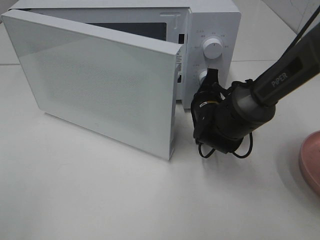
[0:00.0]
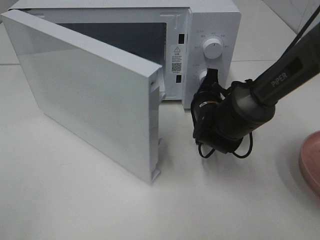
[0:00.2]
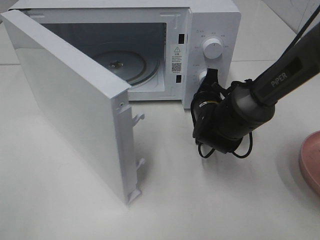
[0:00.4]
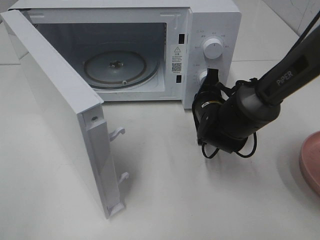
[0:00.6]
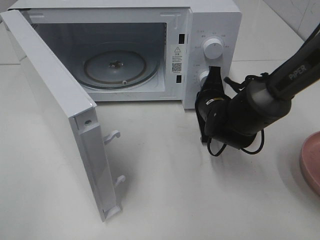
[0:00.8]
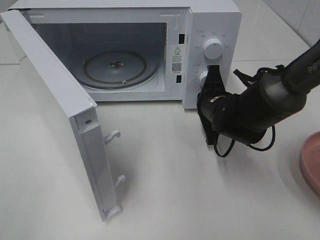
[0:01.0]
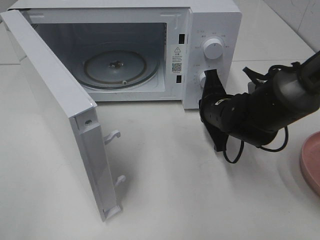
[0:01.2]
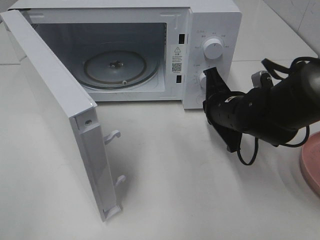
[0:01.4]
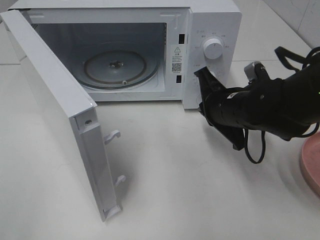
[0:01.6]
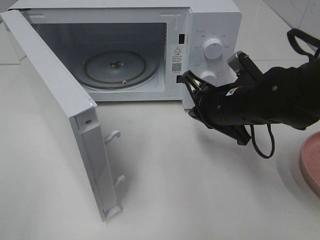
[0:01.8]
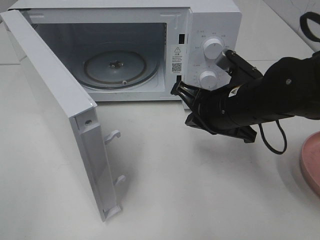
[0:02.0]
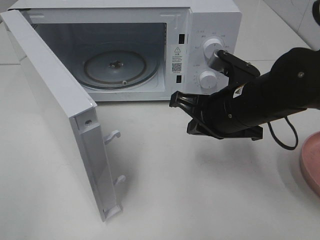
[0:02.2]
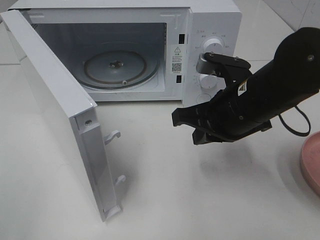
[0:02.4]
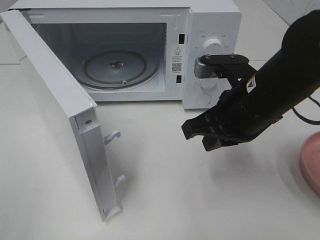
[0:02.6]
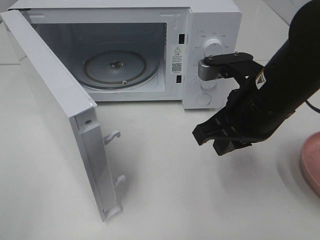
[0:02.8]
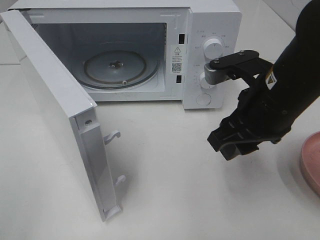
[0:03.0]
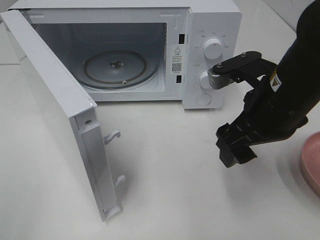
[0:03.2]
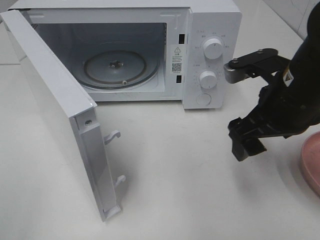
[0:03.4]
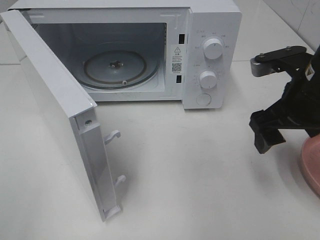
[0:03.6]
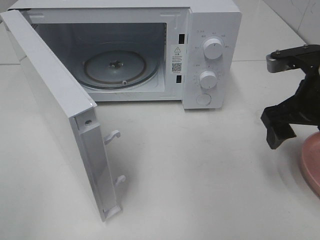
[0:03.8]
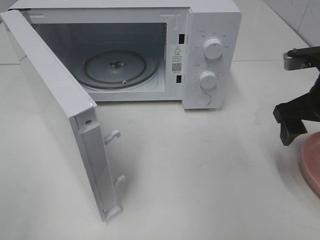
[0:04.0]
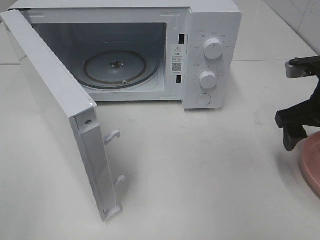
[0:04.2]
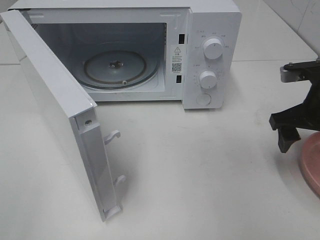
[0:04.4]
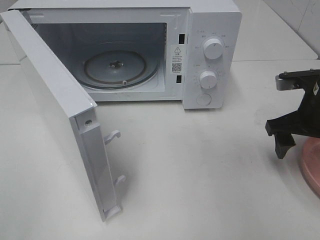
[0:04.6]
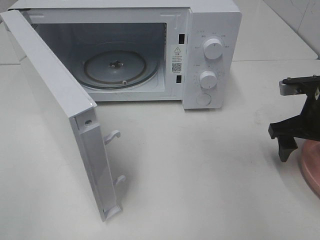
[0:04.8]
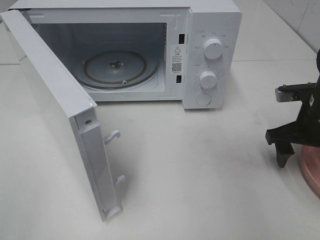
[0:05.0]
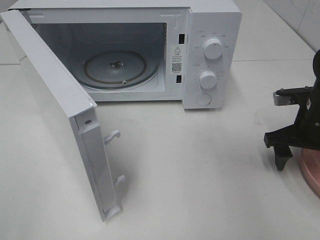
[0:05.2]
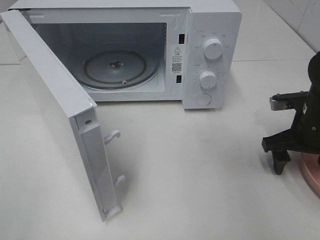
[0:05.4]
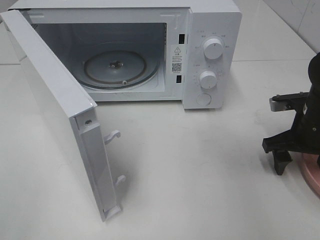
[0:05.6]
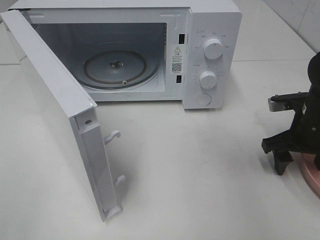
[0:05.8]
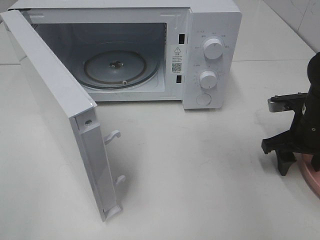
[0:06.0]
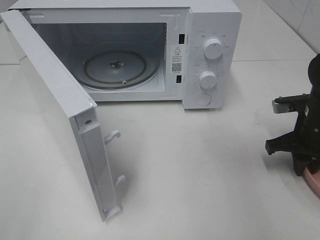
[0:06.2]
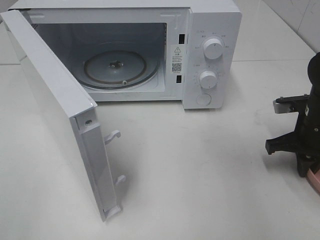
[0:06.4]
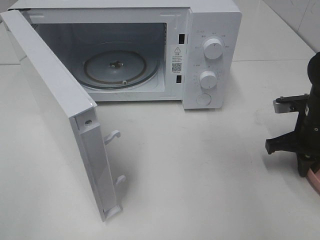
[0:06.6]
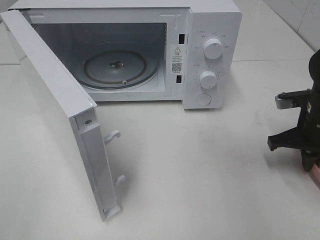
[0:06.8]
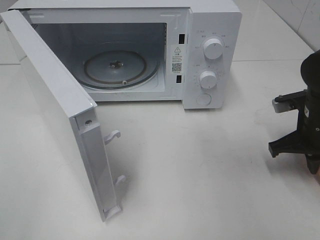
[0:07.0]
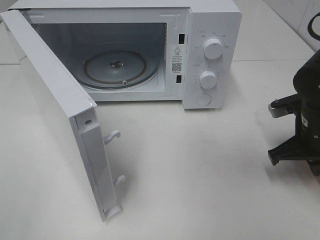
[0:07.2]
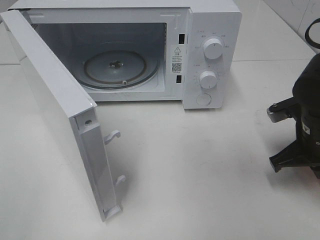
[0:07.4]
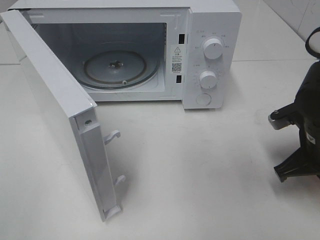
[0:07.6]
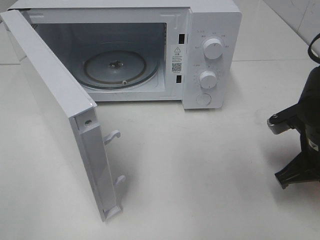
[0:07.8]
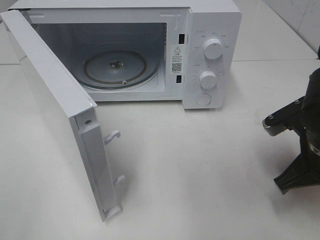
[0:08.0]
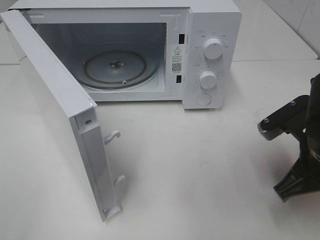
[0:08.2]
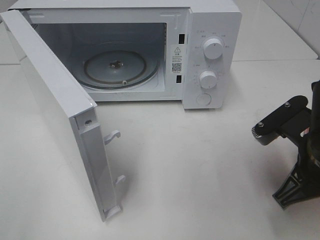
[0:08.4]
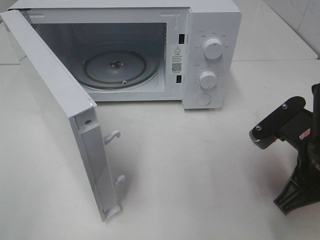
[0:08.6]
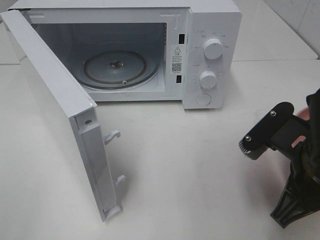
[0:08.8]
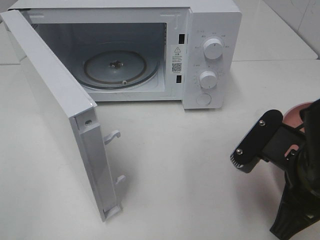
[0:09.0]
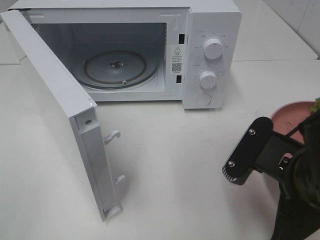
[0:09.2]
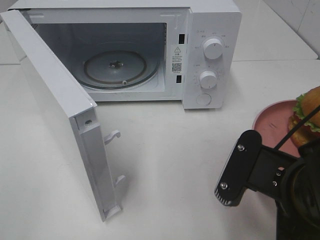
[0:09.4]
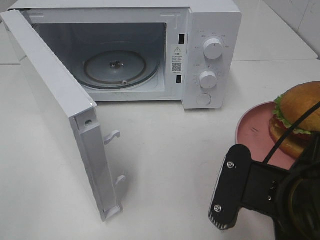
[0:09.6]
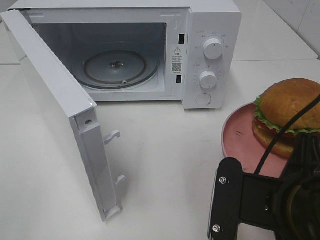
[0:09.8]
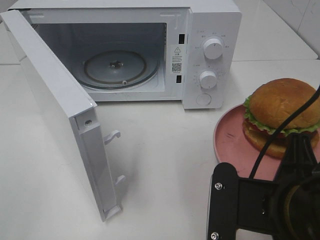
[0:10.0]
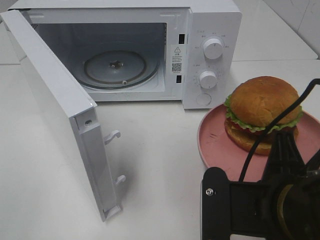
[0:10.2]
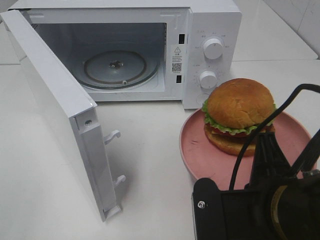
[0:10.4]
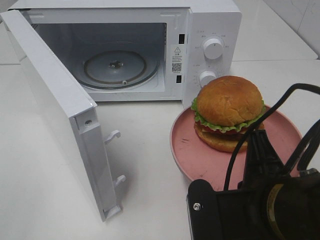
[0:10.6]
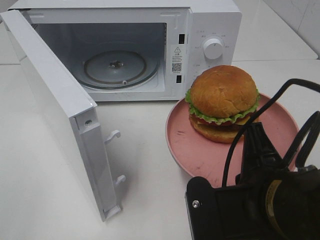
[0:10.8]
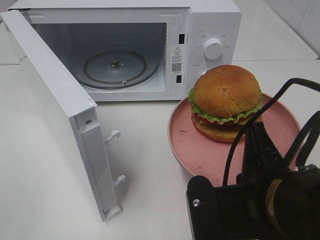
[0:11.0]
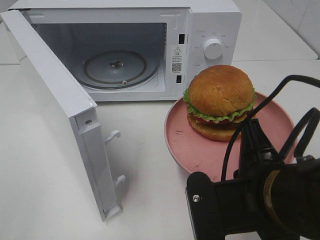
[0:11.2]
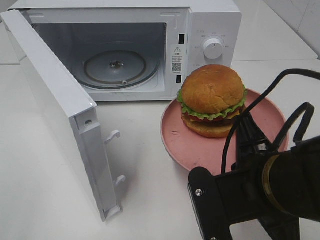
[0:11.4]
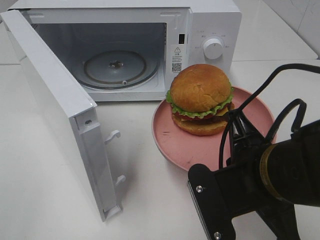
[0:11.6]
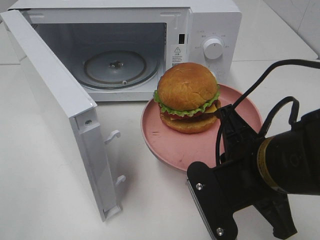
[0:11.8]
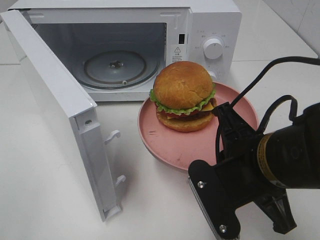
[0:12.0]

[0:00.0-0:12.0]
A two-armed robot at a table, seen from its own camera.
Task of the whole recording: Heat the burger.
Step, 0:01.4 to 0:06.8: Right hand: grab the plate with the hamburger.
0:00.0 to 0:01.6: The right gripper goes approximately 10 cm backward and upward.
0:01.6 to 0:03.0: The right gripper moves upward and backward, some 10 cm, and opens its fingers.
0:03.0 to 0:04.4: The right gripper travels to the right by some 10 cm, and opens up.
0:04.4 to 0:06.0: The right gripper shifts some 5 cm downward.
0:06.0 to 0:07.6: The right gripper travels backward by roughly 5 cm, and closes.
0:07.6 to 0:09.0: The right gripper heads backward and to the left, covering about 15 cm.
0:09.0 to 0:10.4: The right gripper ends up about 5 cm from where it was.
0:10.4 to 0:12.0: The right gripper heads forward, covering roughly 5 cm.

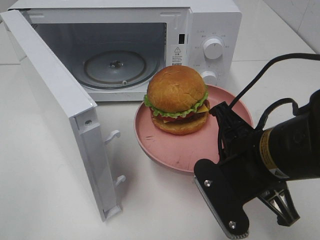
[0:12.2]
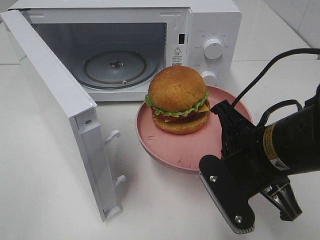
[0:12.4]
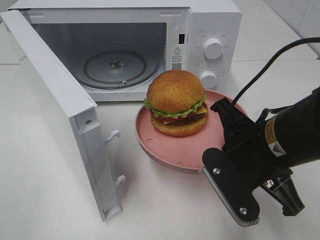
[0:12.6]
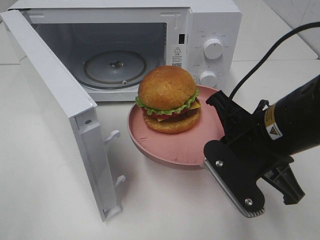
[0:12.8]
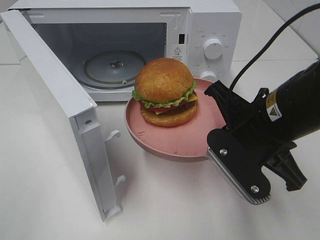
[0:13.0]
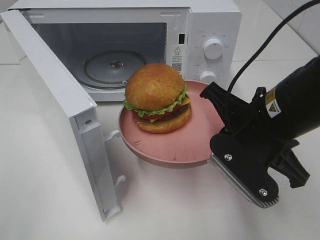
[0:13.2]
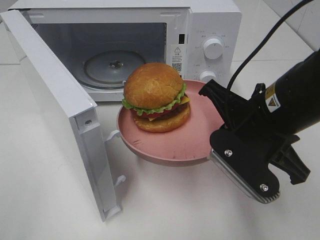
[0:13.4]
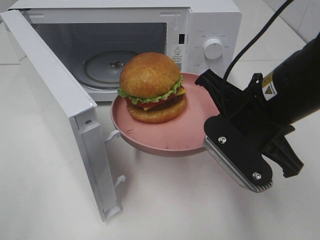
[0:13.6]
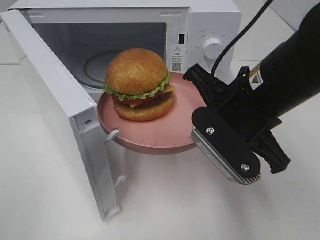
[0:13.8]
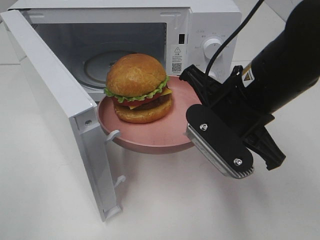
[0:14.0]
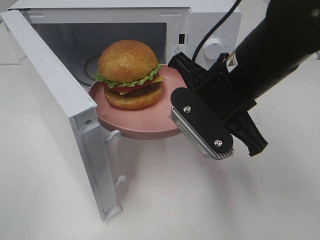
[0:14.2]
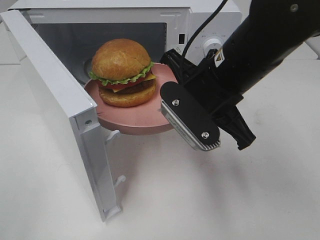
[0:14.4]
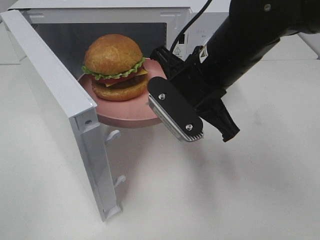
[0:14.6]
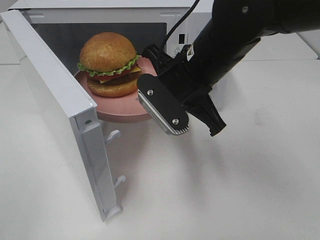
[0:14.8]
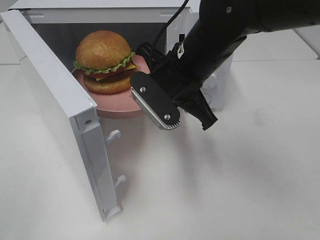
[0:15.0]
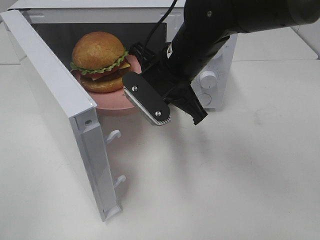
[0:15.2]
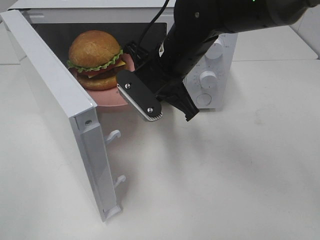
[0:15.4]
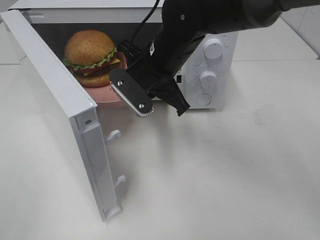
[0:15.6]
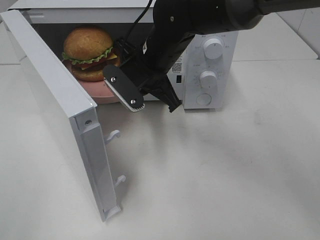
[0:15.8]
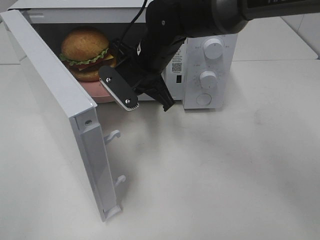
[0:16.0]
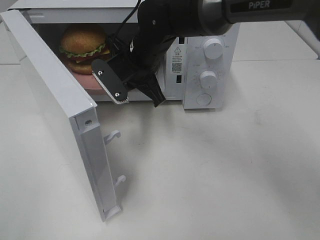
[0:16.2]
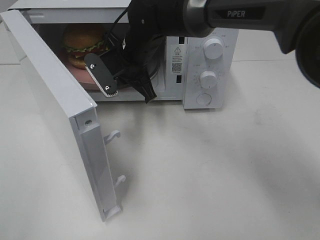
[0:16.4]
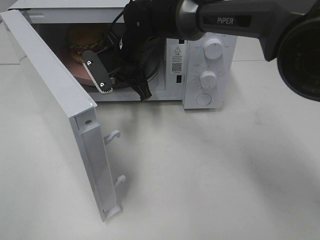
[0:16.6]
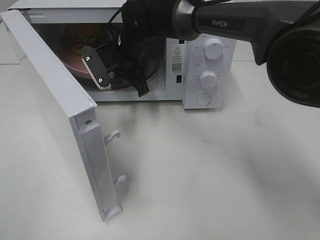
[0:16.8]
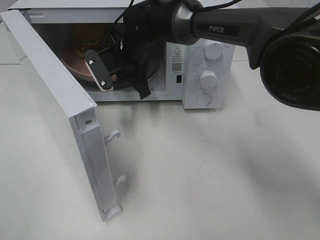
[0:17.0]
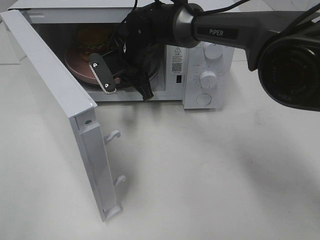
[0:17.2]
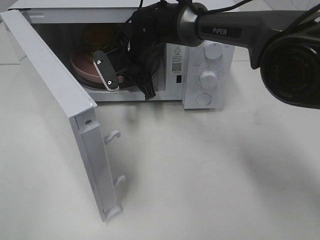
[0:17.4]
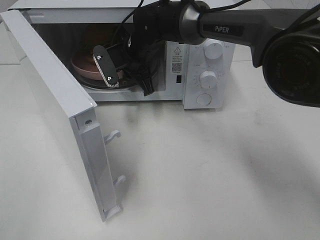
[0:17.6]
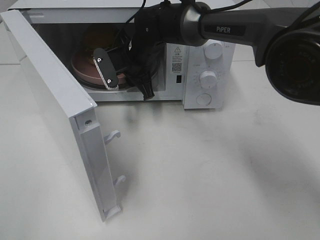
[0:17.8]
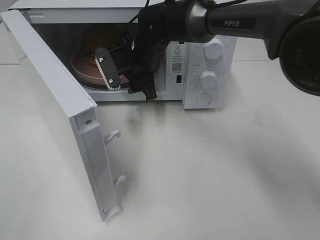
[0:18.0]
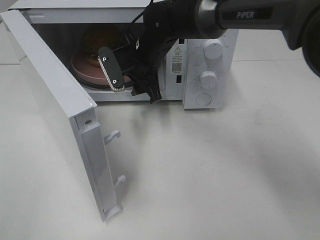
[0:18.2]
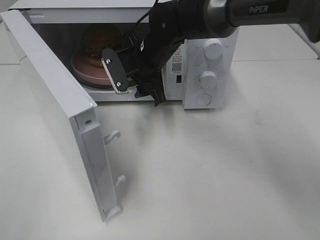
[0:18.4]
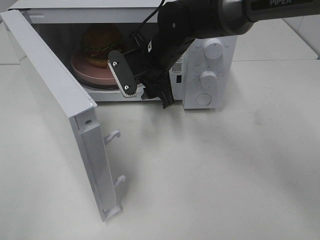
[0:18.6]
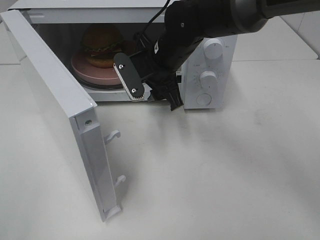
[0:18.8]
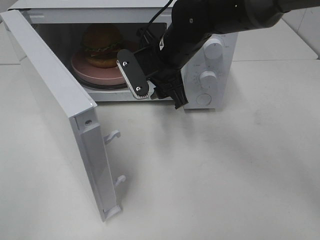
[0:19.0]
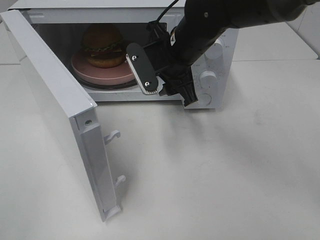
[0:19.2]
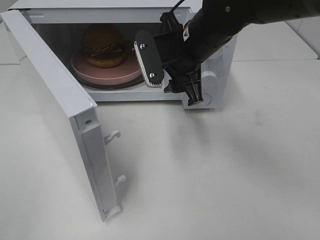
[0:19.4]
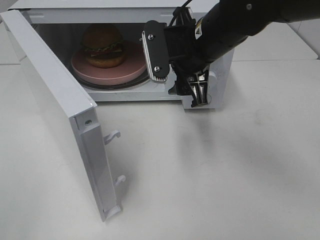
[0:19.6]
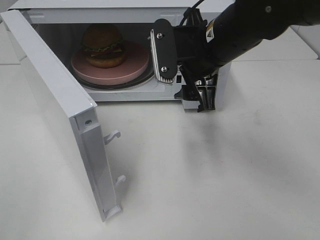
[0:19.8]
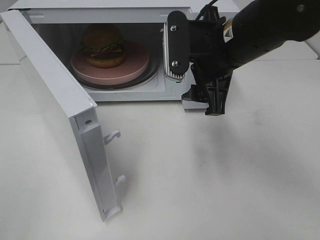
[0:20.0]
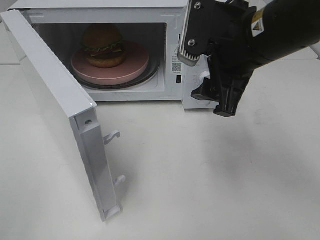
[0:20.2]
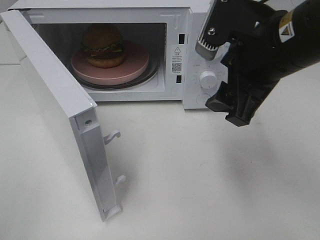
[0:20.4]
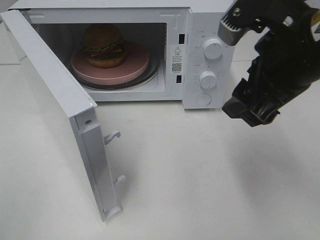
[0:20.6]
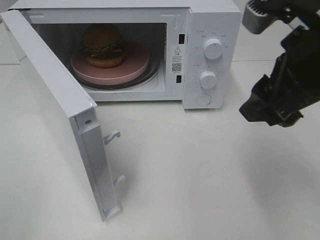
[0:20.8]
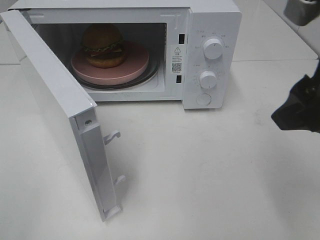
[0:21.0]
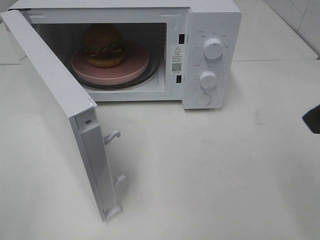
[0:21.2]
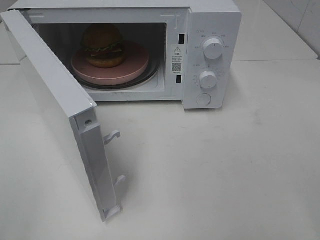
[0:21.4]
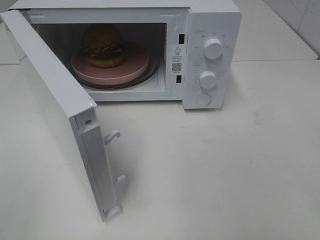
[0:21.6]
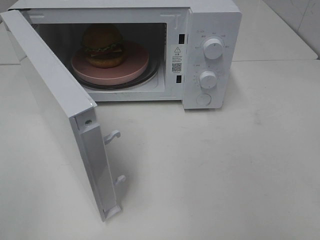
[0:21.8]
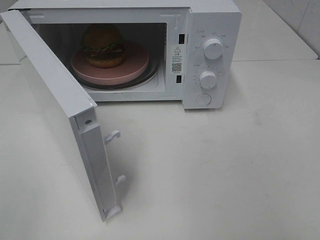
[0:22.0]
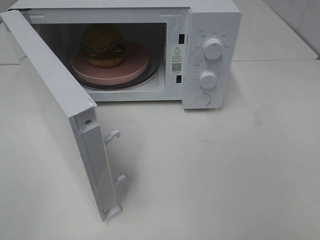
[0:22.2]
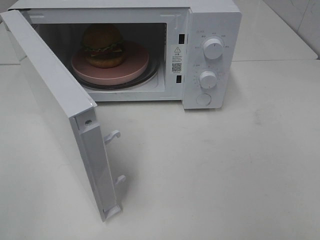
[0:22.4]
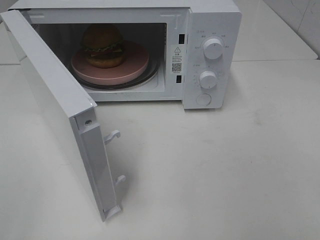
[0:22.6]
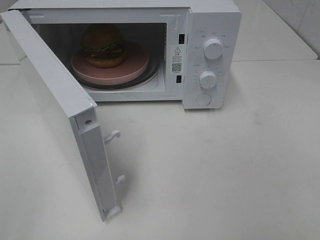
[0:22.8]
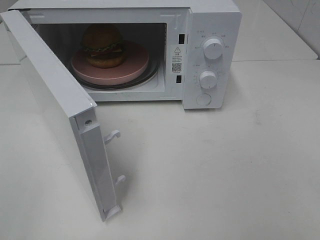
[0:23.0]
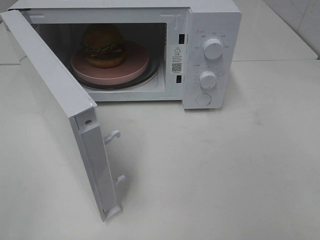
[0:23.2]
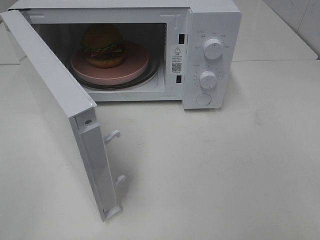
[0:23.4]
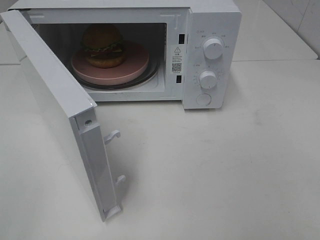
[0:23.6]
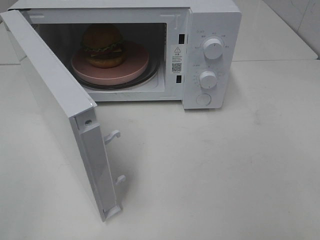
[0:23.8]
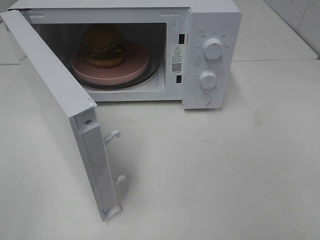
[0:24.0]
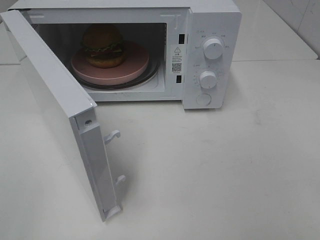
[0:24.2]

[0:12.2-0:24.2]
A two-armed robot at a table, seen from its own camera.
Task of the whole recording: Heat the burger.
Step, 0:12.2 to 0:17.8: Right hand: place the plate in the microwave.
0:12.2 to 0:13.8: The right gripper ends up about 5 cm from where it was.
0:13.8 to 0:15.2: The right gripper is displaced forward and to the left by about 15 cm.
0:15.2 to 0:16.6: The right gripper is displaced forward and to the left by roughly 15 cm.
0:16.6 to 0:18.2: The right gripper opens up.
0:18.2 to 0:19.8: The right gripper heads backward, to the right and upward, covering about 15 cm.
0:19.8 to 0:21.2: The right gripper is displaced backward, to the right and upward by roughly 25 cm.
0:22.6 to 0:24.2: The two grippers keep their place.
